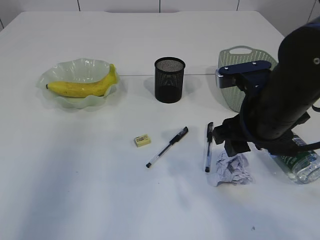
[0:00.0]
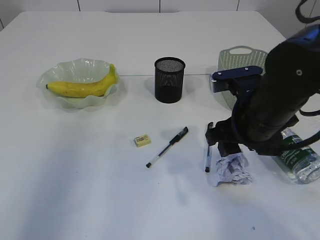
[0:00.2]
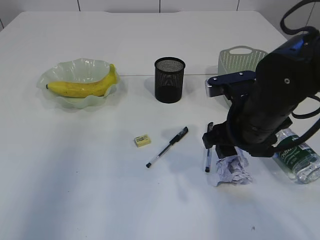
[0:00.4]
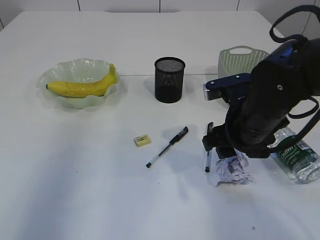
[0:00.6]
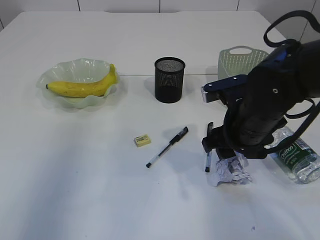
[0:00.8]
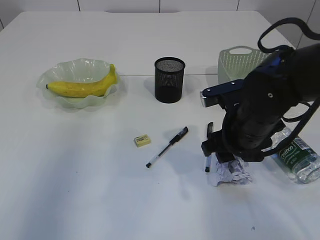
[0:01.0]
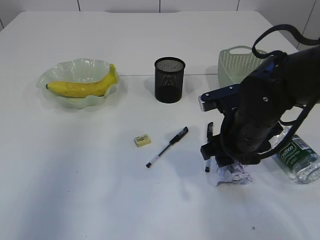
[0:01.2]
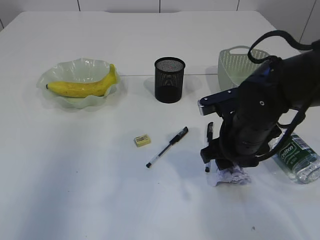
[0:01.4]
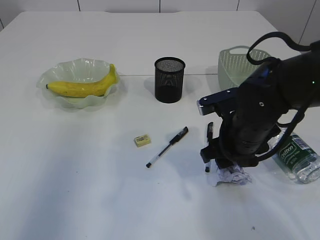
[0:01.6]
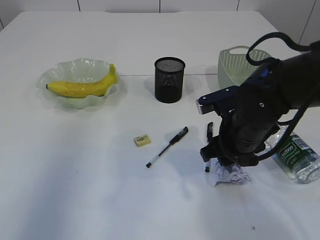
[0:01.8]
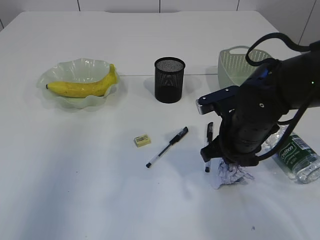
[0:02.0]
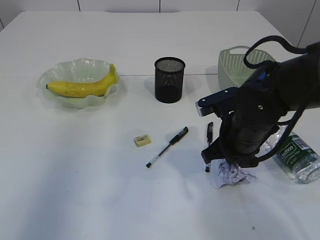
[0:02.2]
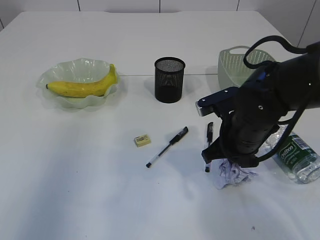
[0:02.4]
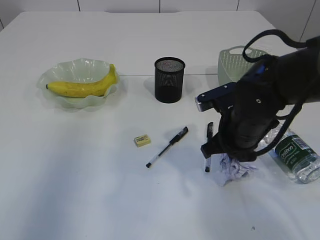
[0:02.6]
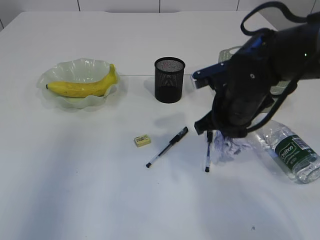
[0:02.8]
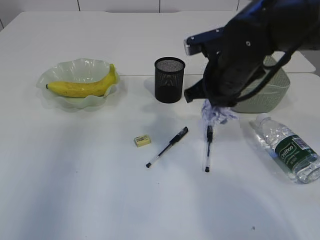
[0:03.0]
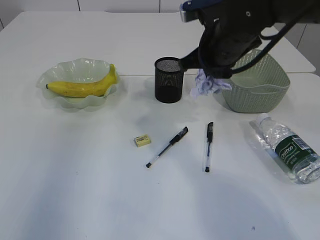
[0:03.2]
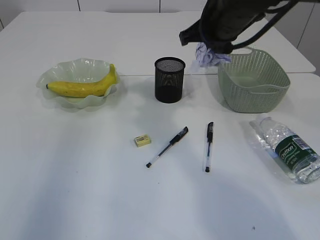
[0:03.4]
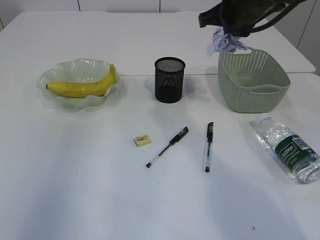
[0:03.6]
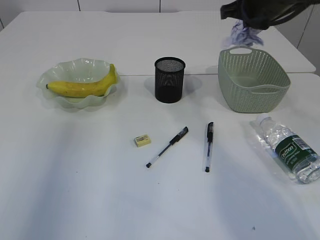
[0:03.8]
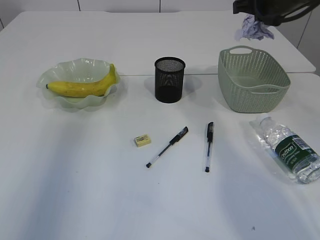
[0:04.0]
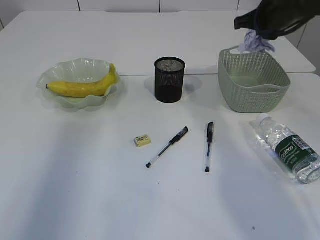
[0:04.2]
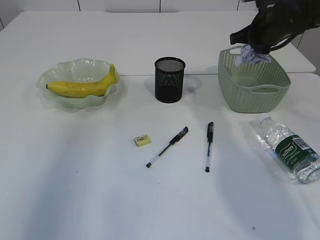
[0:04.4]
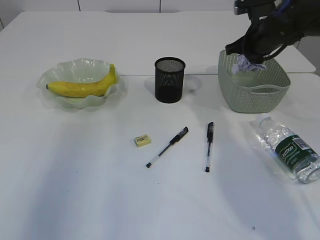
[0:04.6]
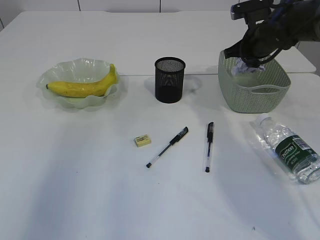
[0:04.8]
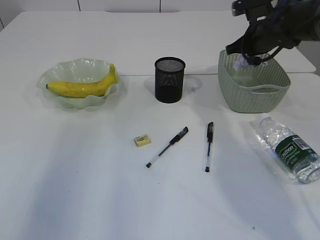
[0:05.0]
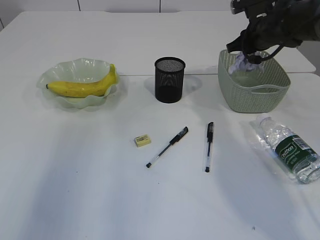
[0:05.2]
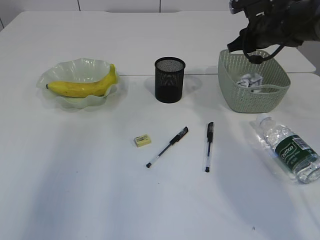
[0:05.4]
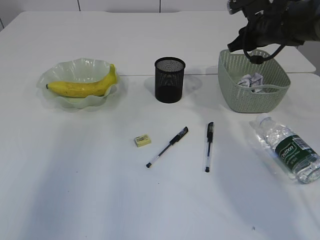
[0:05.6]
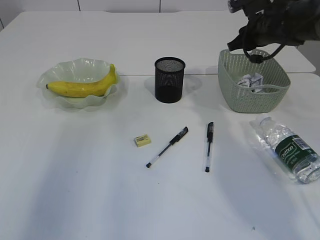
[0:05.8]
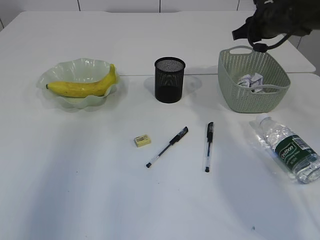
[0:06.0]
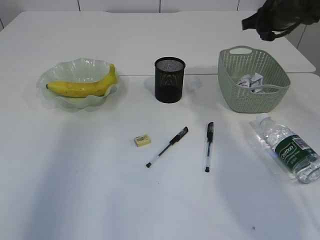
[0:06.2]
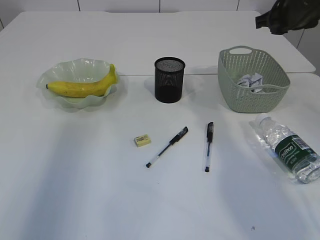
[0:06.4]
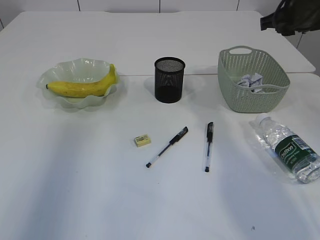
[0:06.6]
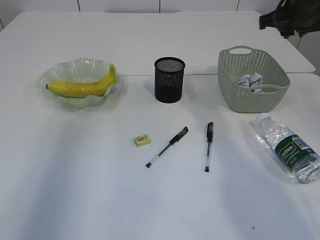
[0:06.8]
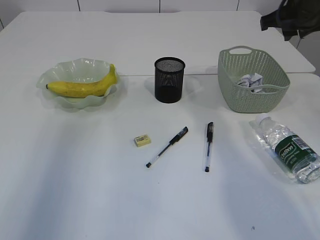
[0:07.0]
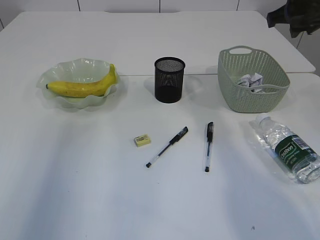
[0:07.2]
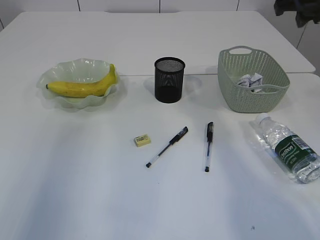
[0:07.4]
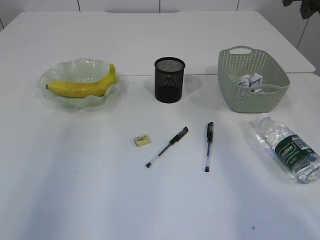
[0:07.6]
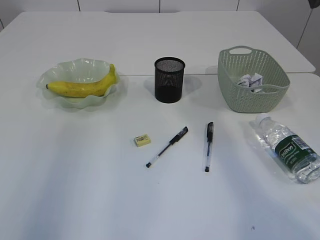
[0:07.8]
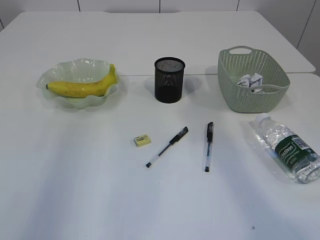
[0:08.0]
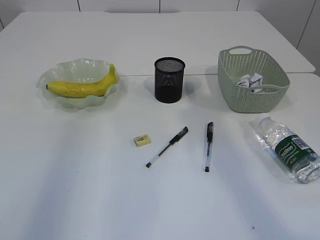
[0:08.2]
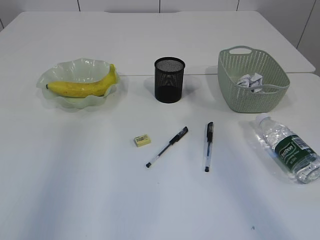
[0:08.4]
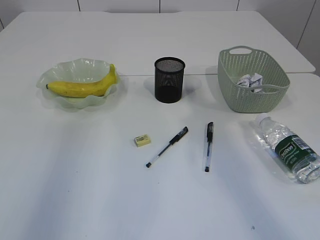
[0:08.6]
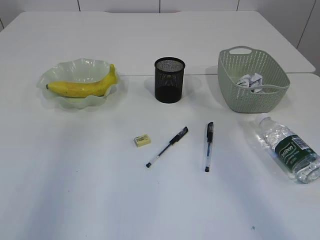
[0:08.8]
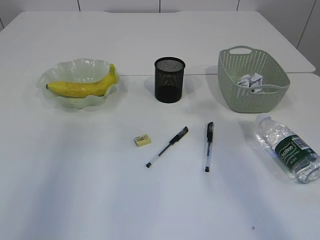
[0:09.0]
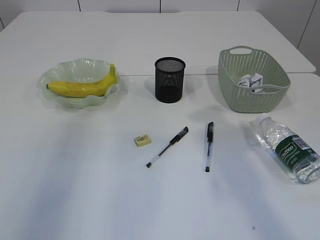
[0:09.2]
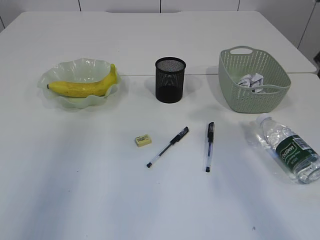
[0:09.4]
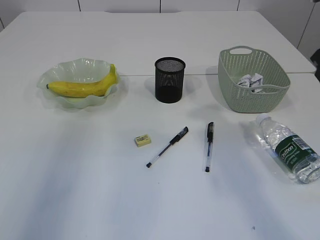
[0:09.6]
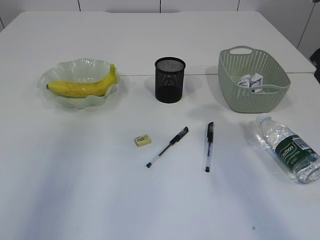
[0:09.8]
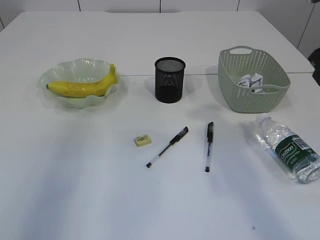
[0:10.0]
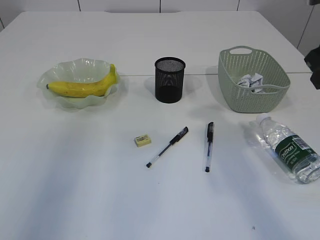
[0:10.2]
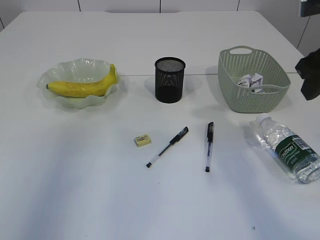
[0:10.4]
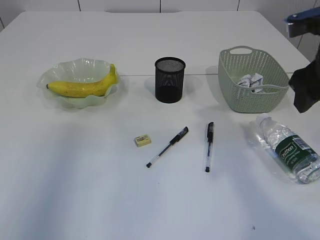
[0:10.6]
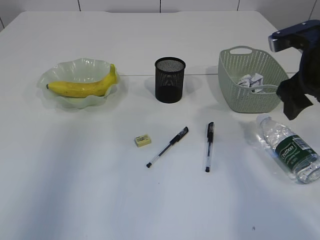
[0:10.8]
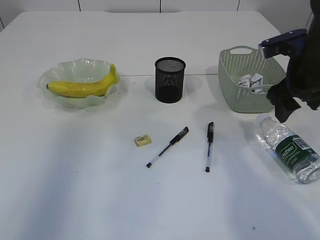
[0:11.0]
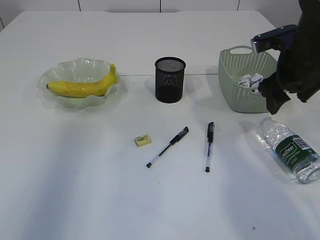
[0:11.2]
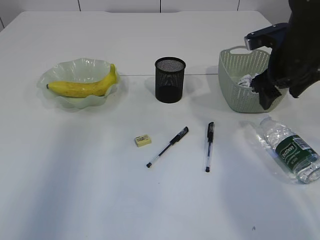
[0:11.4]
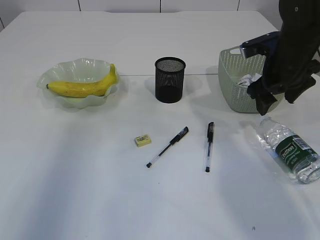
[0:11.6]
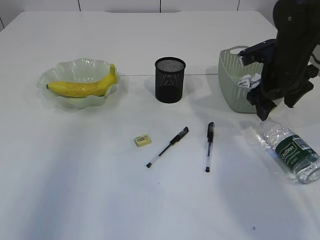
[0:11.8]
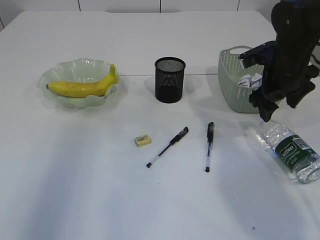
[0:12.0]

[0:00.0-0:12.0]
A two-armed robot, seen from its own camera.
Step, 0:00.0 to 0:02.8: Pick up the waste paper.
Step, 0:03.0 to 0:05.8: Place the waste paper in the basket.
0:00.0 to 0:01.6: The right gripper travels downward by about 5 cm.
0:01.6 to 0:03.0: The right gripper shifts approximately 10 cm upward and forward, and closes up.
0:03.0 to 0:04.4: The right gripper heads to the right and forward, covering approximately 15 cm.
0:04.4 to 0:06.0: The right gripper opens its fingers.
0:06.0 to 0:07.6: The right gripper heads upward and backward, covering about 15 cm.
0:07.6 to 0:09.0: The right gripper shifts about 10 cm backward.
0:09.0 to 0:10.4: The right gripper travels downward by roughly 5 cm.
0:10.4 to 0:12.0: The right gripper heads forward and downward, covering about 15 cm, and opens.

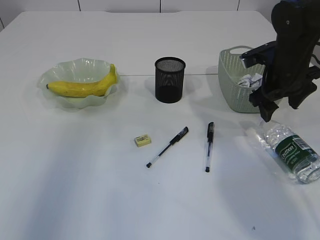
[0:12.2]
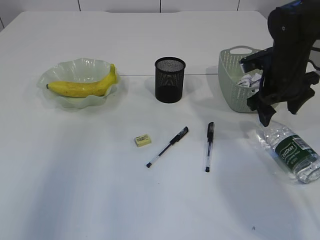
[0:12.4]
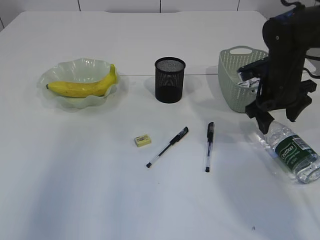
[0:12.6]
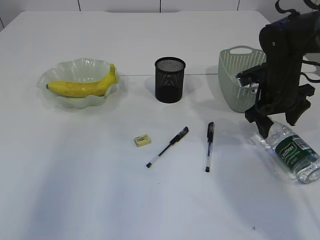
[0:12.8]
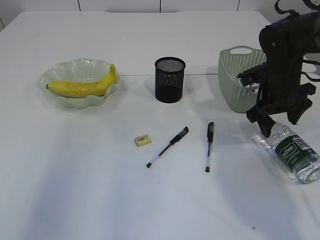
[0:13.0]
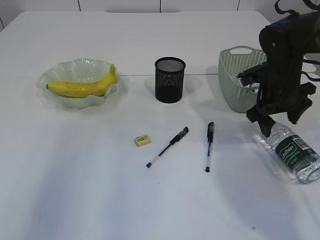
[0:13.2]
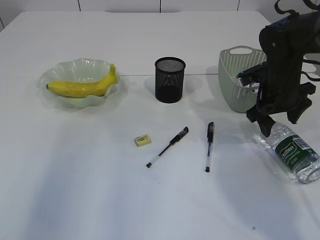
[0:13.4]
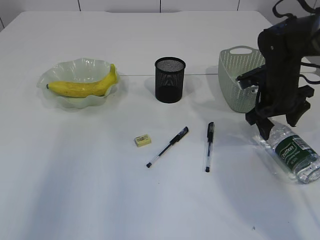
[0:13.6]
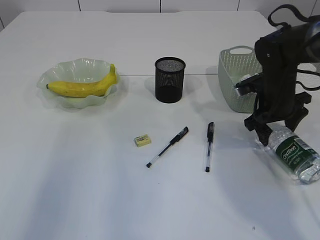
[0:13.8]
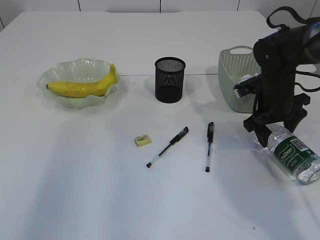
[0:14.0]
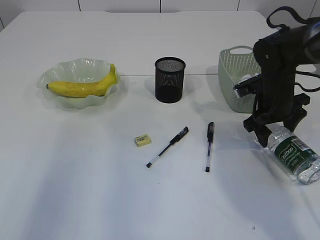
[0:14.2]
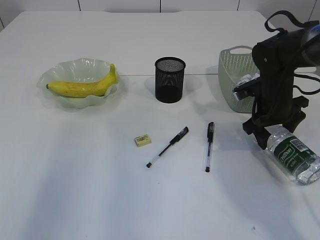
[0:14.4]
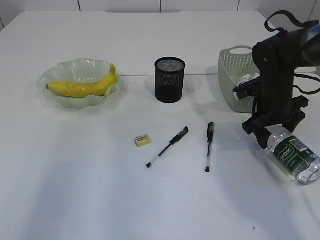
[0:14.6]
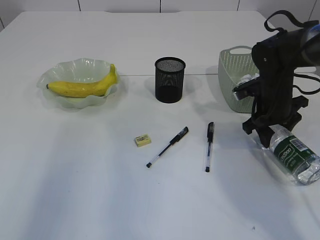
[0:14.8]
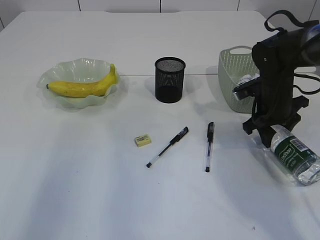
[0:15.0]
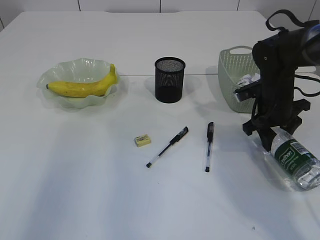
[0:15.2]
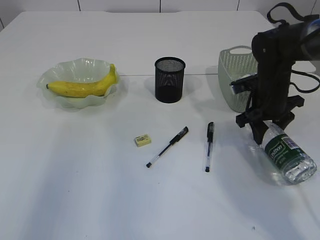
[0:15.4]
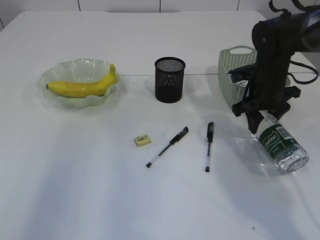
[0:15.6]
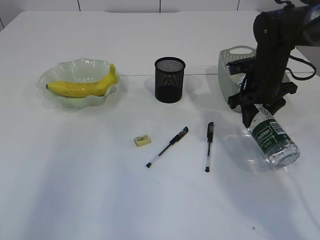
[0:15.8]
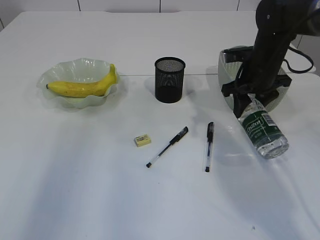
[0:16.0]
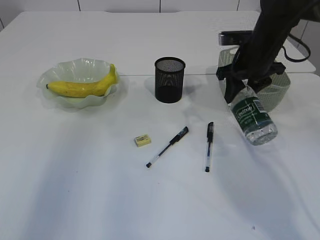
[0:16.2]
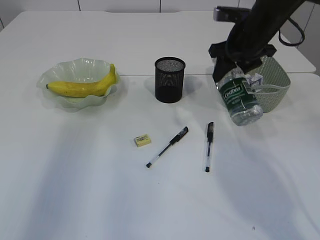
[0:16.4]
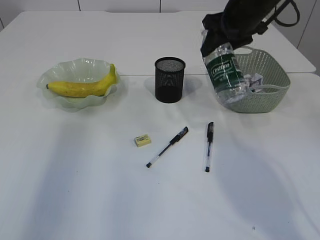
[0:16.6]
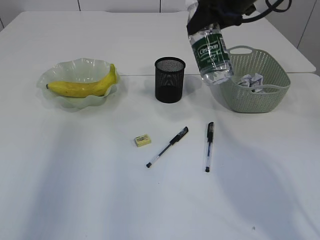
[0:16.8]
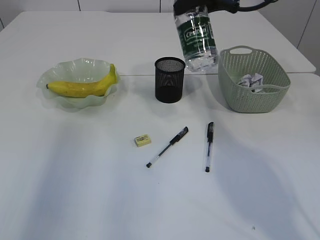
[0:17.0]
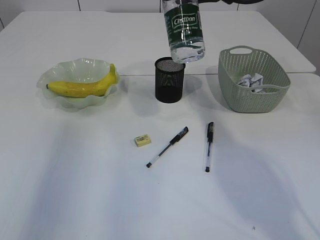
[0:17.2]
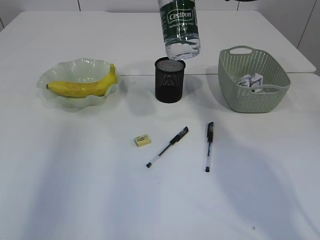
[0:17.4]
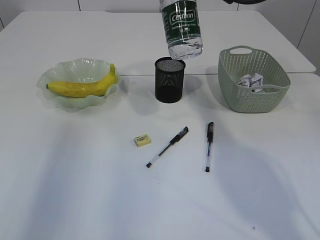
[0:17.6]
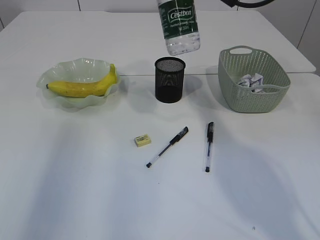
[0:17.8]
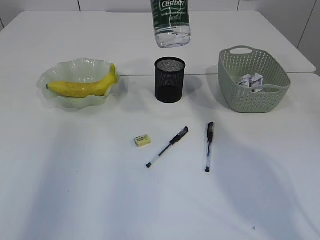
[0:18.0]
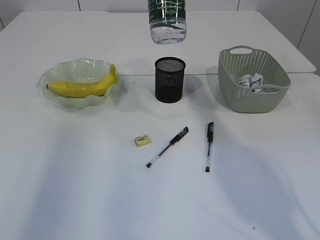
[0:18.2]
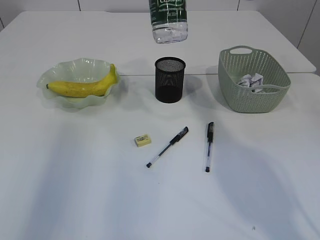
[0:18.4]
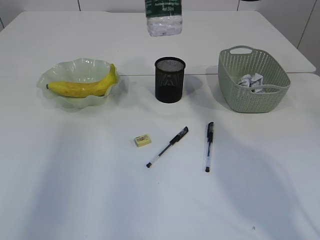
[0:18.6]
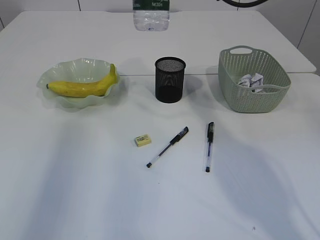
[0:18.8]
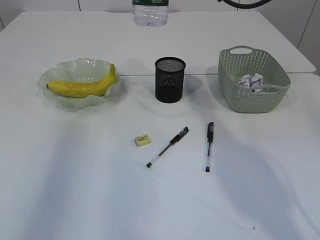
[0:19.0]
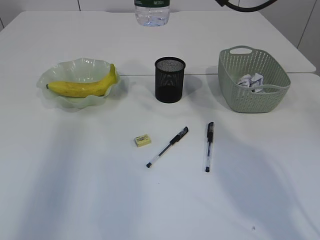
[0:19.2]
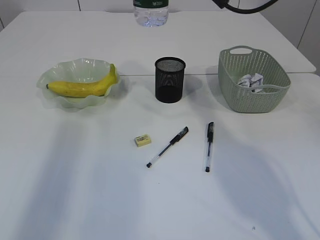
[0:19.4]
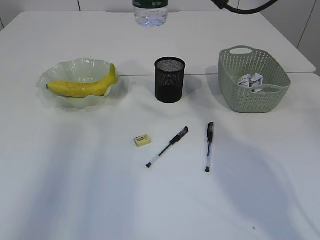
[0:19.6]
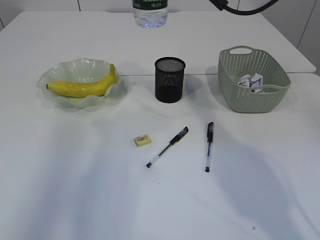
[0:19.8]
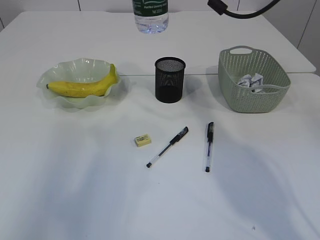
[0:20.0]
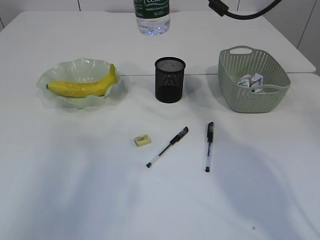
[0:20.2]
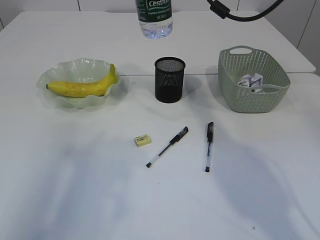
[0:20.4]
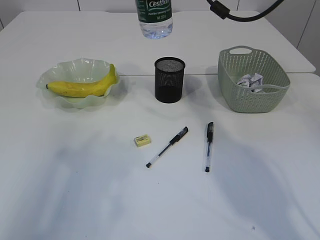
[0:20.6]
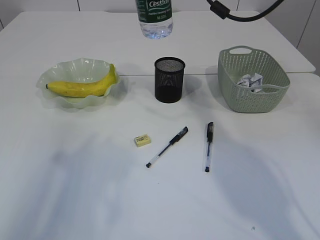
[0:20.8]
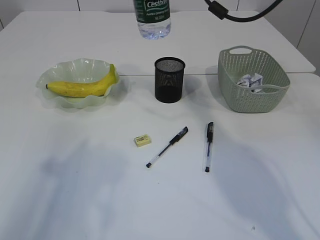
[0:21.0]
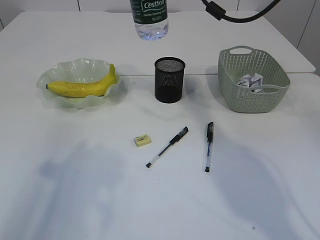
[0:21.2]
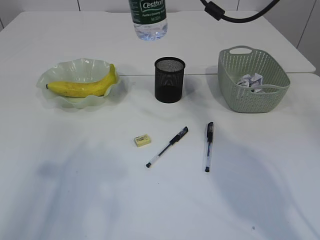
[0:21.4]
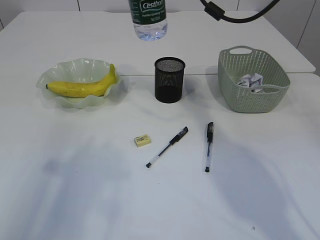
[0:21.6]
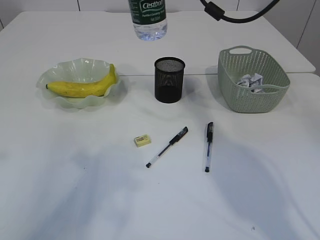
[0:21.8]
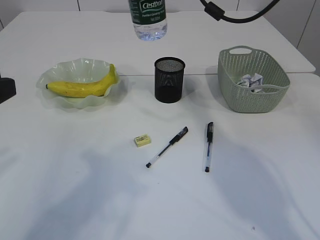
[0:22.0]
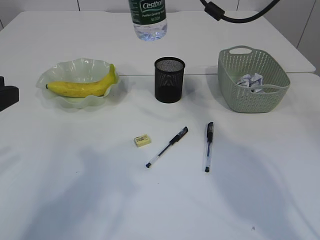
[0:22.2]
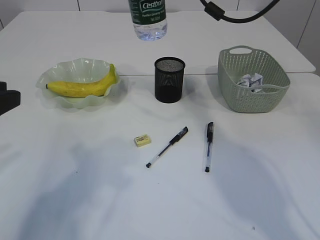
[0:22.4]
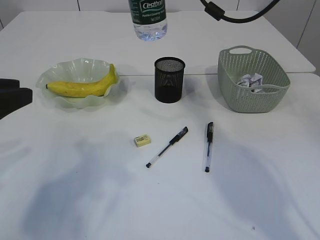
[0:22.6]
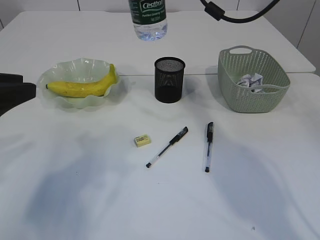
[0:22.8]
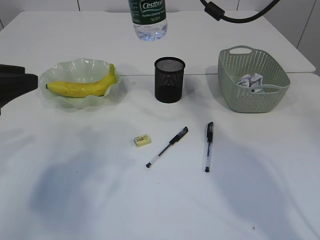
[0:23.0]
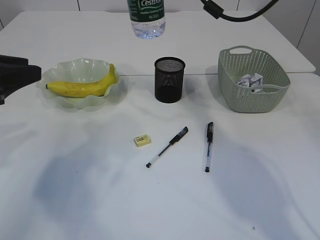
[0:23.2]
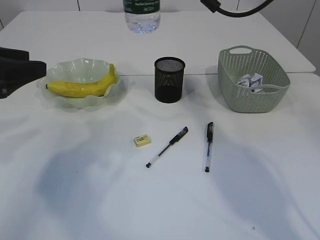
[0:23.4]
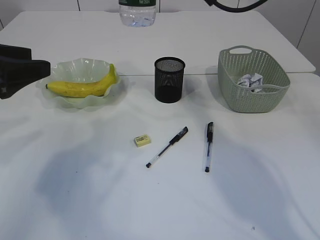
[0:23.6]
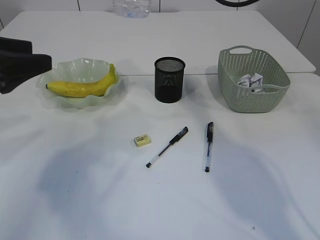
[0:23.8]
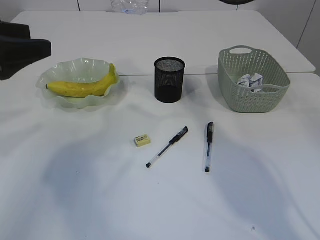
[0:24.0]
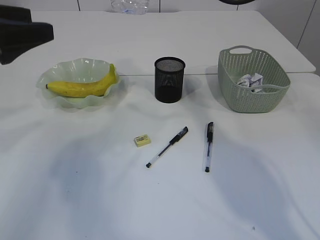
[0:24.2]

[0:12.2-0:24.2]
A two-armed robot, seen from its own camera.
Step, 0:12.2 to 0:16.0: Pick up the bottle with the right arm.
0:12.2 to 0:13.8: The right gripper moves downward, roughly 5 cm.
0:13.8 to 0:15.2: The right gripper closes its fingers.
0:15.2 to 0:16.6: The right gripper is displaced upward by roughly 15 cm.
0:16.6 to 0:18.2: The right gripper heads upward, covering about 10 cm.
0:18.2 to 0:19.8: The left gripper shifts some 10 cm downward.
0:19.8 to 0:21.2: The left gripper moves downward, about 10 cm.
0:21.2 to 0:22.6: The left gripper is displaced forward by approximately 5 cm.
0:22.6 to 0:24.2: The left gripper goes roughly 10 cm forward and upward, and opens.
